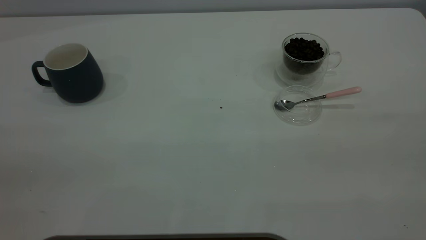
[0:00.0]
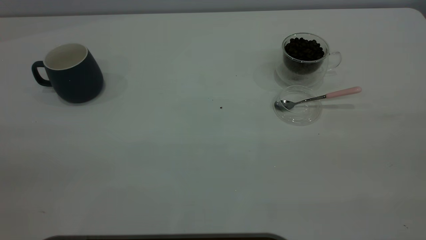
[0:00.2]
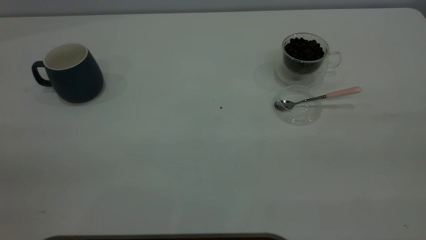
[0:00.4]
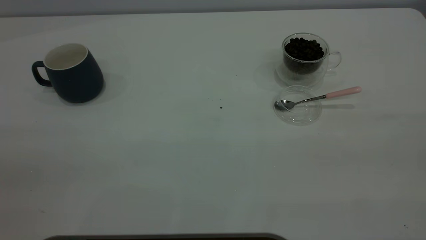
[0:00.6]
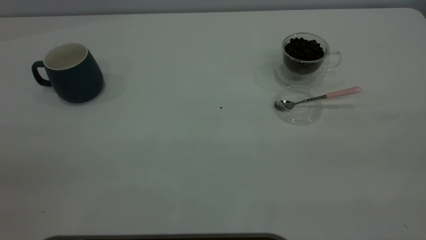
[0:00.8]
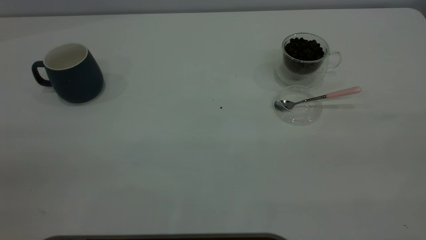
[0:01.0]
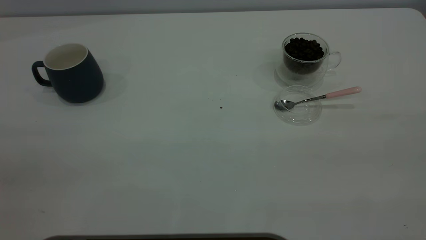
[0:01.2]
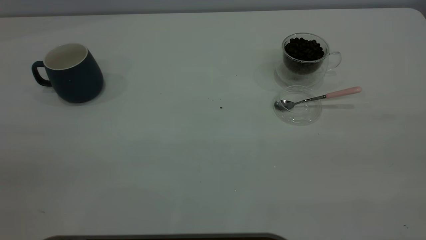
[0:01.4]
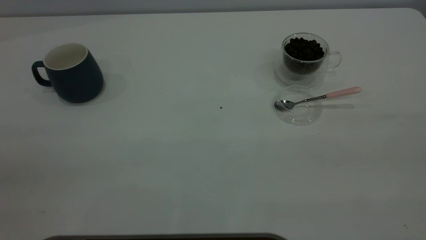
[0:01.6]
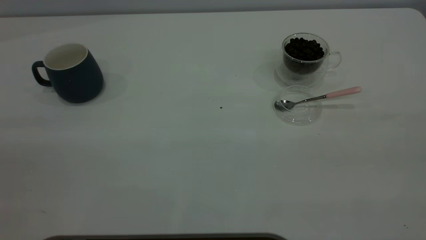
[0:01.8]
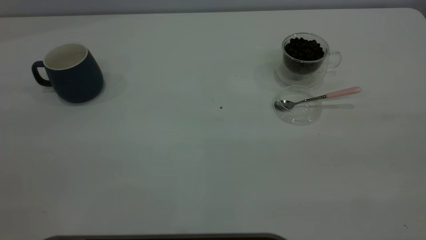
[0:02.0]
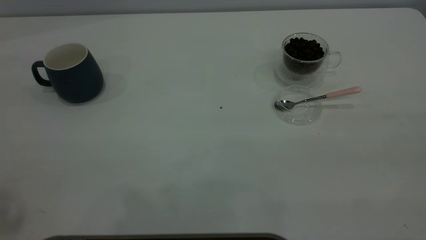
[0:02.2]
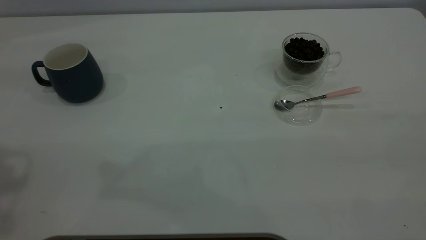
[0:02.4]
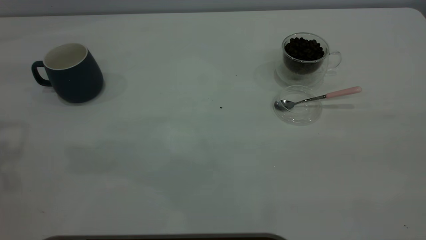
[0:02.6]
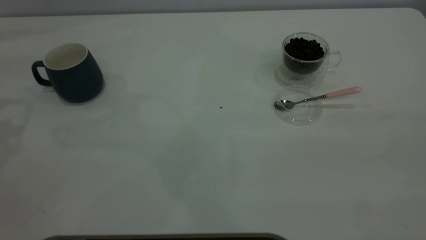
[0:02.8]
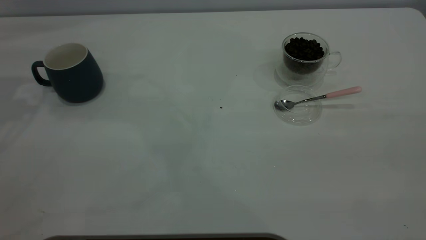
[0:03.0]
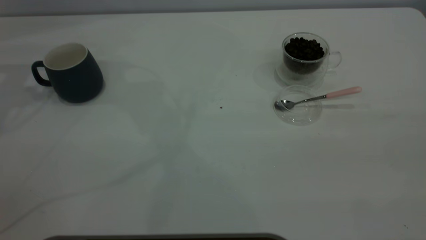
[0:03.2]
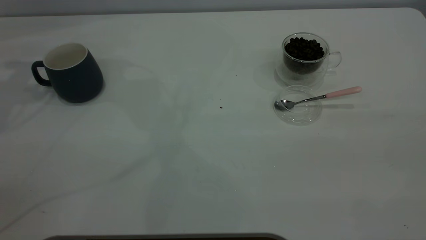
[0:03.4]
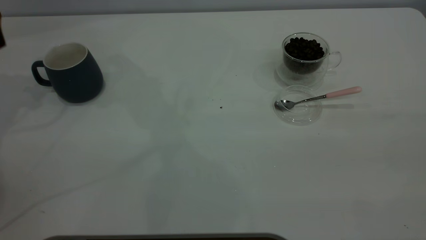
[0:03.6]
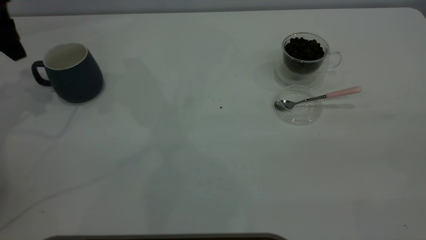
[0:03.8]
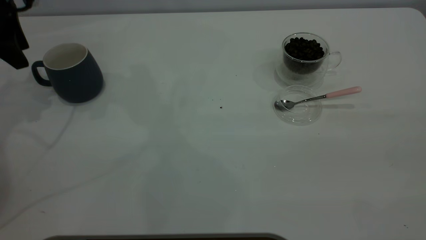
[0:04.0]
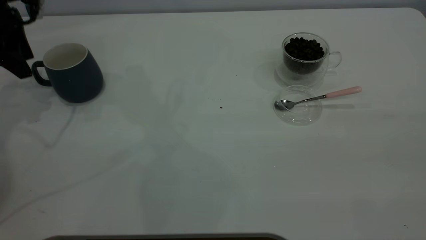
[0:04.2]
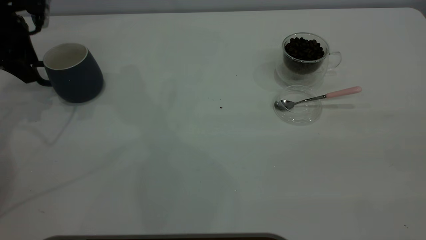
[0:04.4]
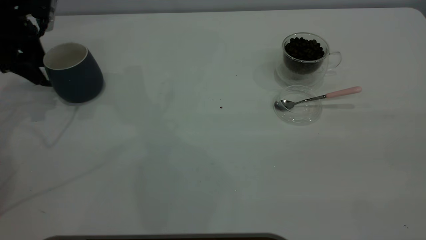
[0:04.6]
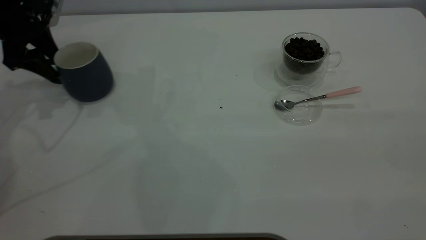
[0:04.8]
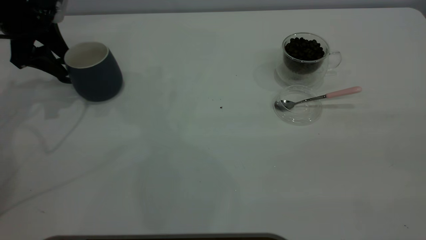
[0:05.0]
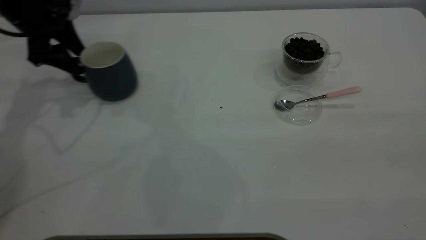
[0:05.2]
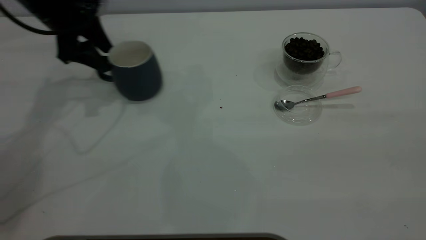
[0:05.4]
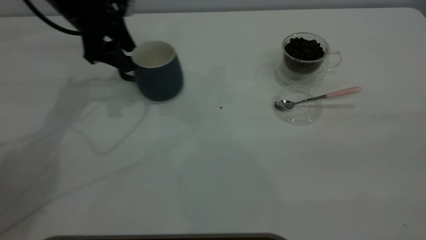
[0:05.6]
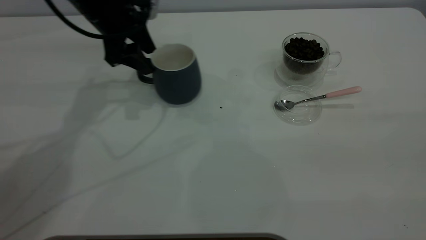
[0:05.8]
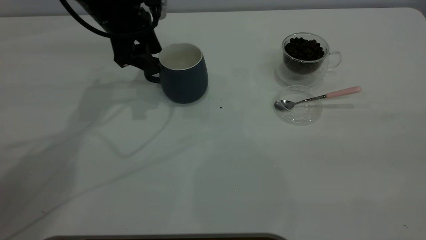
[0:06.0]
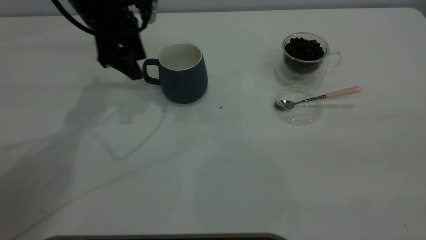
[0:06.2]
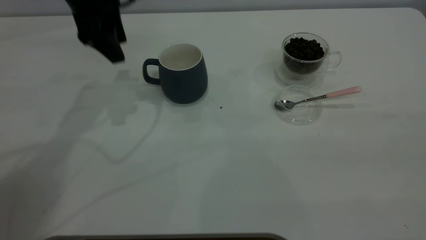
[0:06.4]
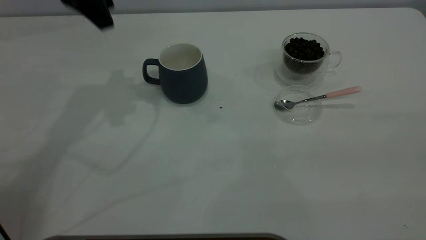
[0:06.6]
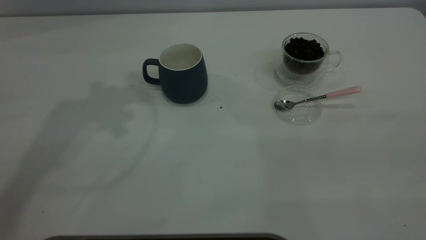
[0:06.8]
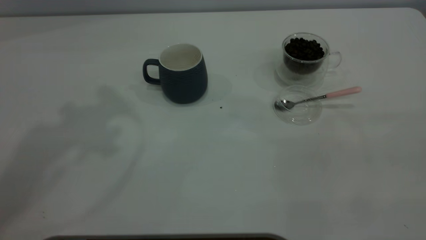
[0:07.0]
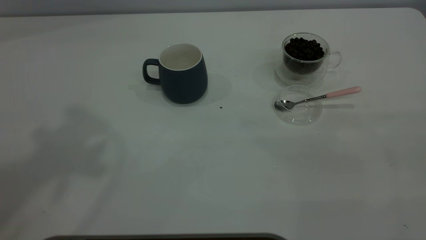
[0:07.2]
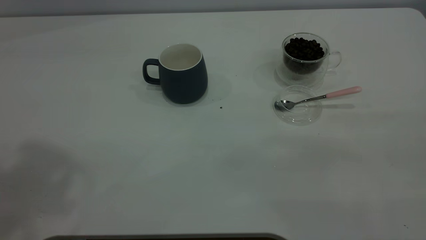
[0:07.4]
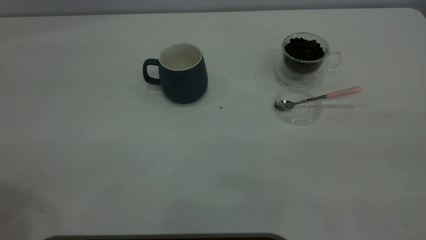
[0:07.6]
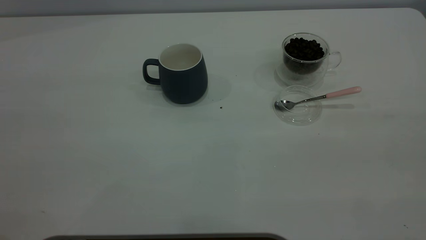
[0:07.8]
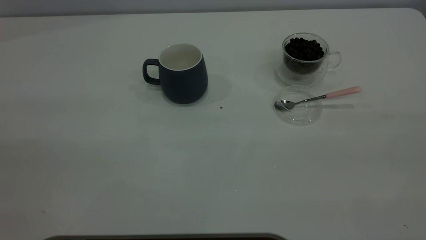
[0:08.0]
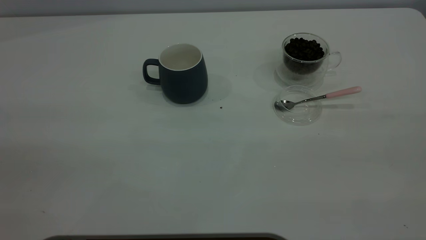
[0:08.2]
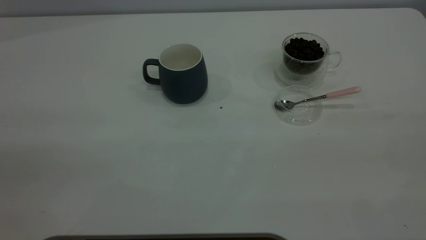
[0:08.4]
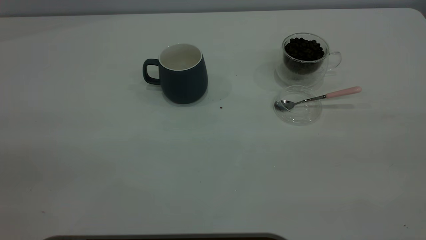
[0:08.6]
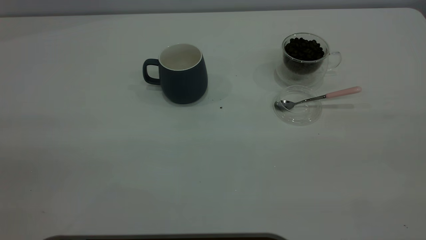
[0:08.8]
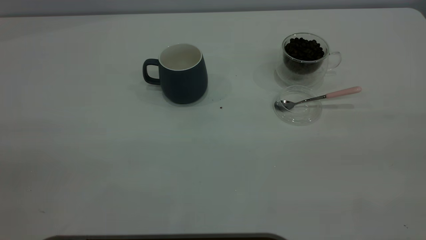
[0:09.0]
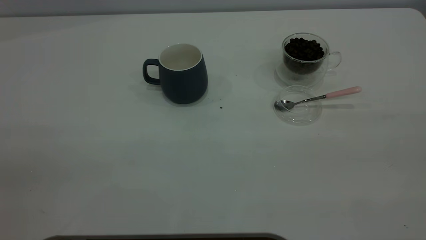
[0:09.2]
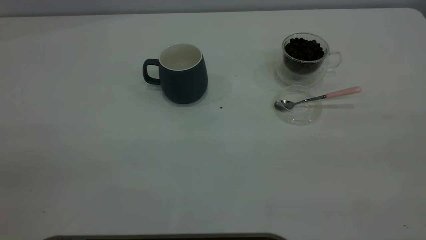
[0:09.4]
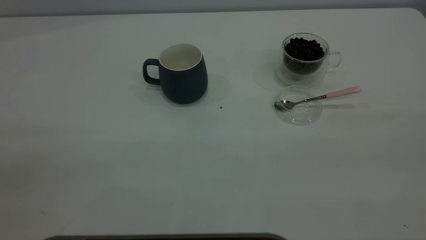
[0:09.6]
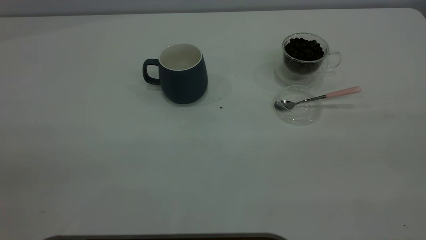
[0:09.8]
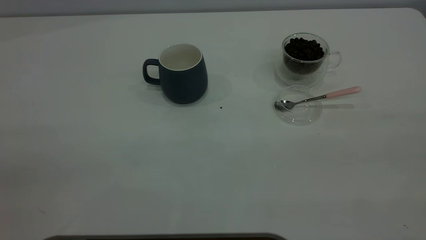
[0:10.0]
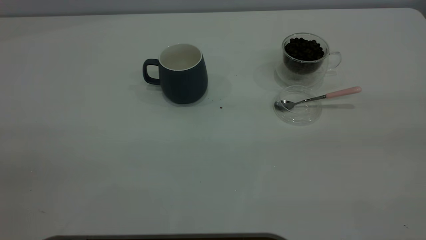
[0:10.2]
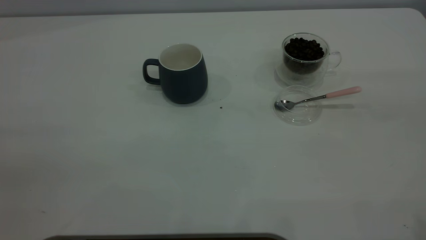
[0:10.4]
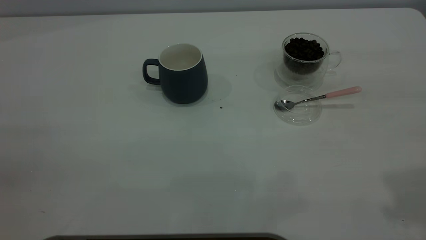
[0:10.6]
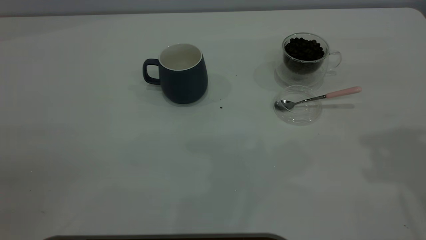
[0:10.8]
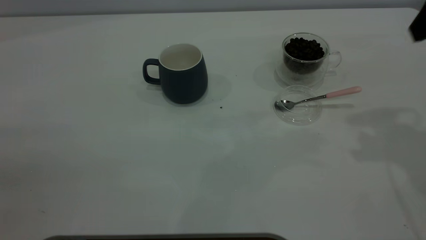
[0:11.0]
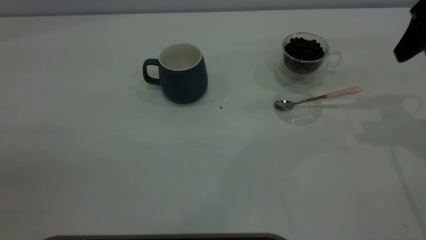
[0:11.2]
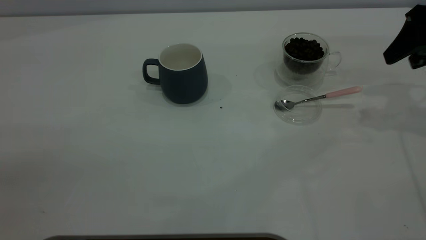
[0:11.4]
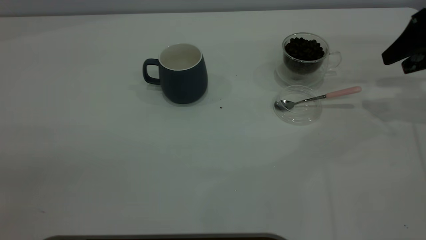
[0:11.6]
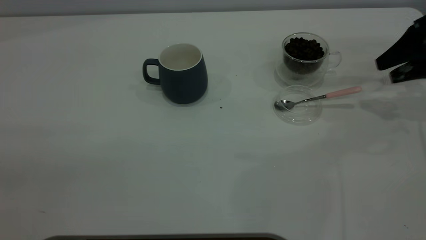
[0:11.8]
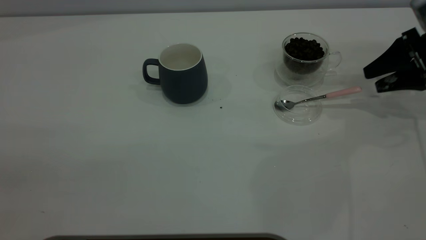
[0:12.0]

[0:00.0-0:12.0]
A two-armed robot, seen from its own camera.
Task of the whole recording: the left gripper place the grey cup in the center of the table, the right gripper take the pink spoon from the cup lid and scoop out the coffee beans from the coffee cup and put them into the grey cup, the right gripper put the spoon back into the cup lid.
Step, 0:00.0 to 0:06.0: Move the cup to the center of view.
0:00.0 to 0:01.6: Neither gripper changes place.
0:03.0 to 0:04.4: The left gripper travels downward by some 10 cm.
0:04.4 to 0:06.0: The left gripper travels to the right by approximately 20 cm.
0:06.0 to 0:07.6: The left gripper heads backward and upward, covering some 40 cm.
0:10.4 to 0:12.0: The right gripper travels forward and downward by about 40 cm.

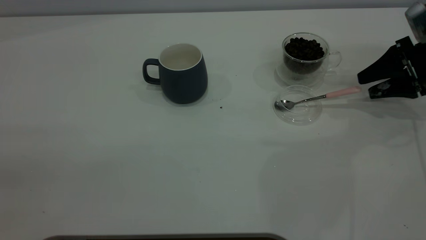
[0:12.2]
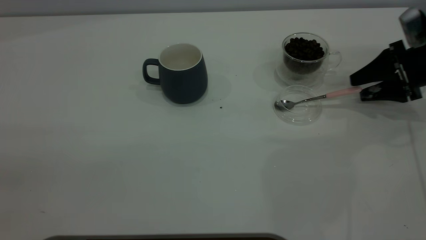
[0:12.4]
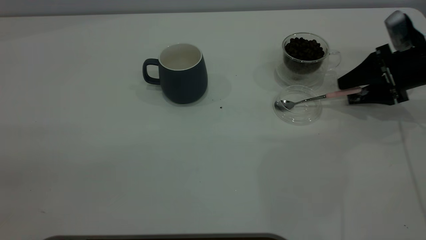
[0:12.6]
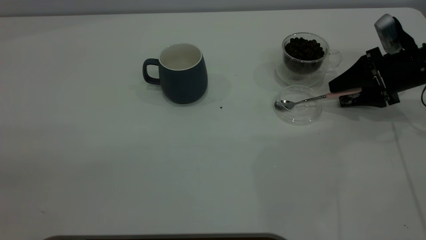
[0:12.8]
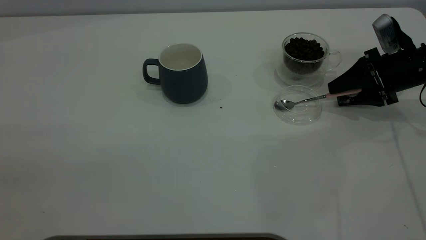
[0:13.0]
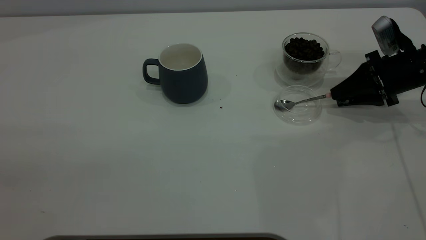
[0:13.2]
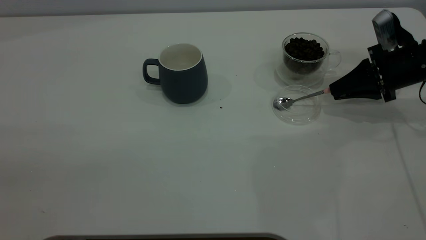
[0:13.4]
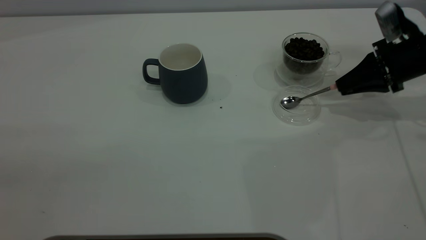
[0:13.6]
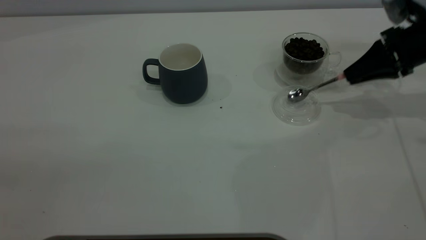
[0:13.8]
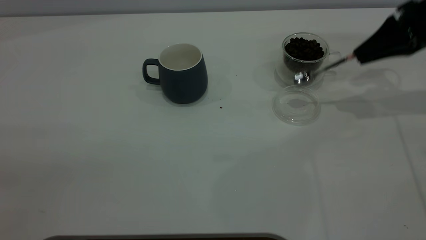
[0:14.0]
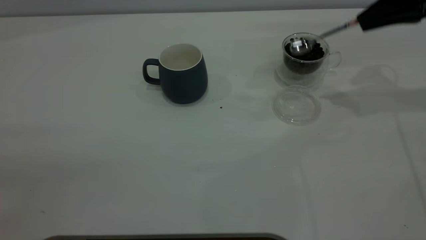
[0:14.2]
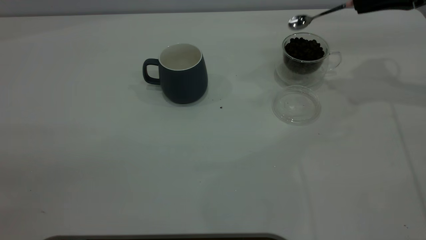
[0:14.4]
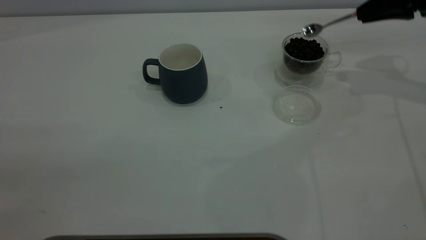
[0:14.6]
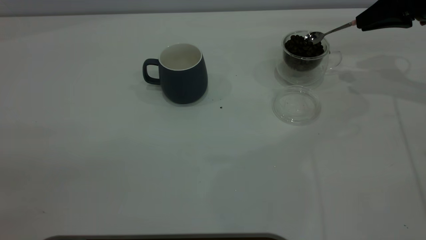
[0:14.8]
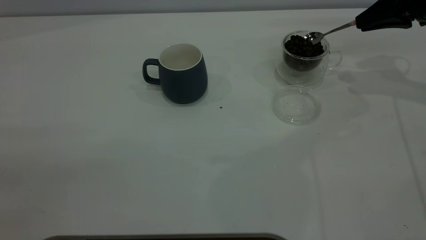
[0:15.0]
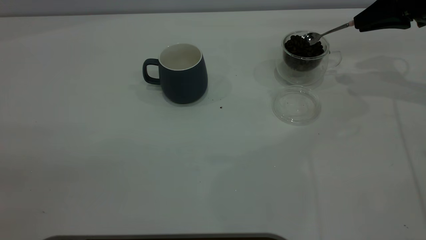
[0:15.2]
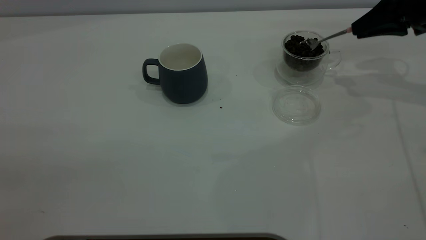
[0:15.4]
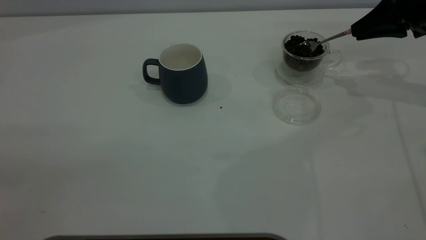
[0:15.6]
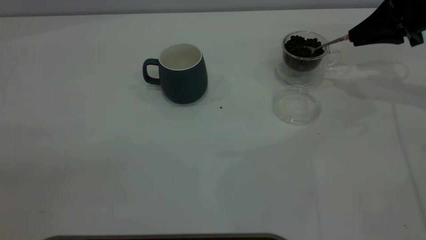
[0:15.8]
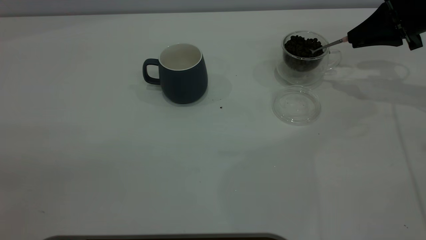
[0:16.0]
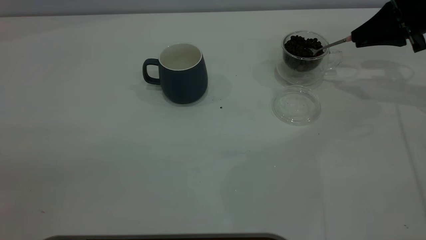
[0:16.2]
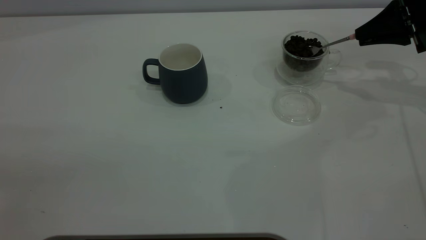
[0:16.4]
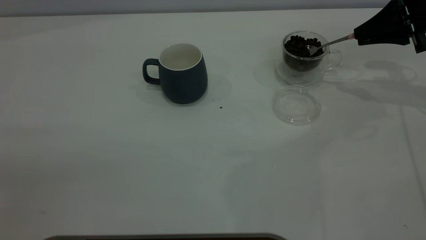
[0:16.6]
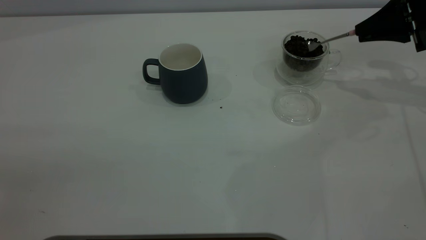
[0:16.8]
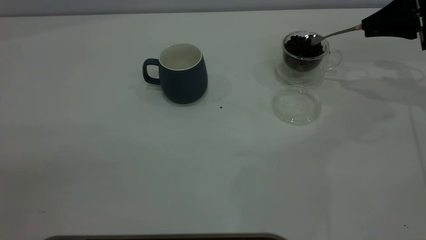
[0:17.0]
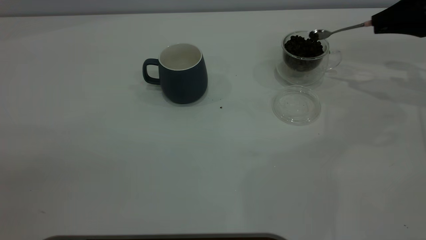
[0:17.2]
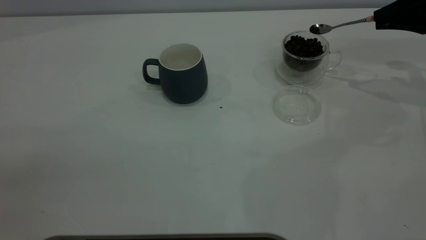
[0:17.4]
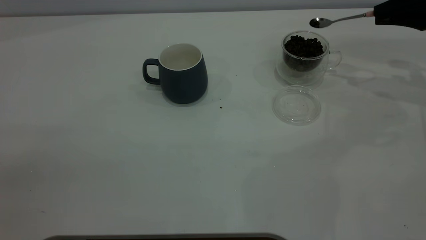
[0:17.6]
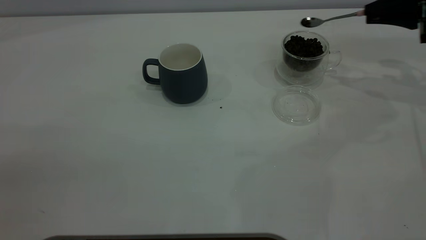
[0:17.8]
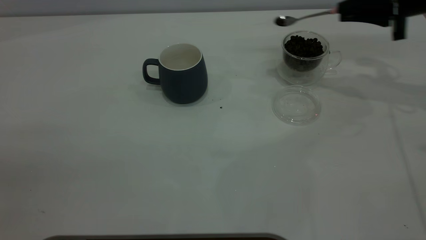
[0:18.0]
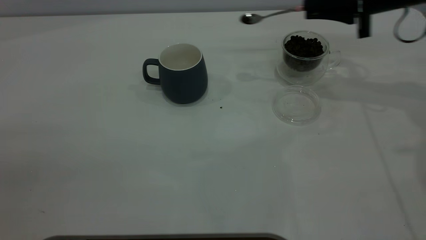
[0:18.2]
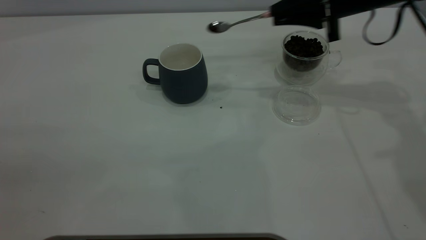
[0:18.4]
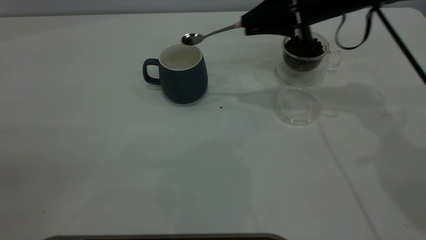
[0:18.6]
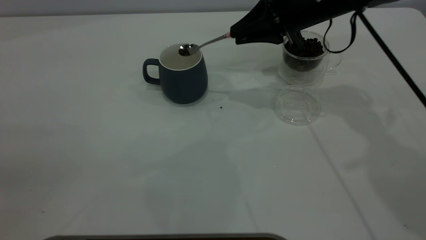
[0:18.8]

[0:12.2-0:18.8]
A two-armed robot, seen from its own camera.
Task of the whole recording: the left gripper place the grey cup in the center of the table, the right gripper take the pink spoon from the cup lid and scoop out the coffee beans from the coffee cup and put them into the grey cup, the right gripper put the spoon back into the cup lid.
0:12.2 to 0:13.8: The right gripper ends up roughly 5 cm from where it was, and closes up.
0:17.2 to 0:18.8: The right gripper moves to the left, about 25 cm.
